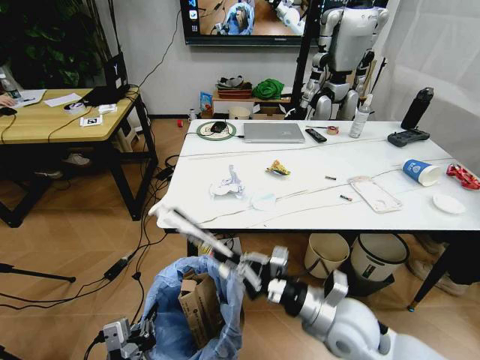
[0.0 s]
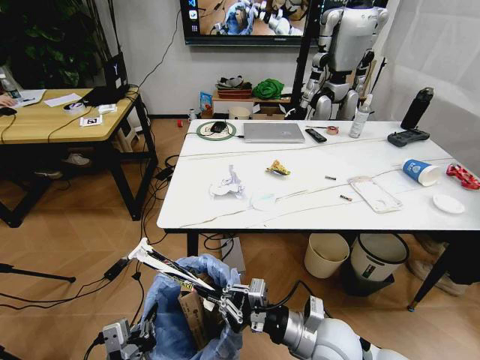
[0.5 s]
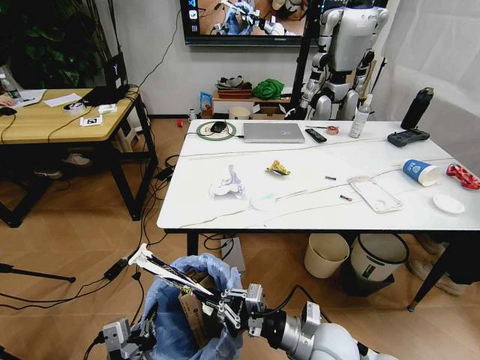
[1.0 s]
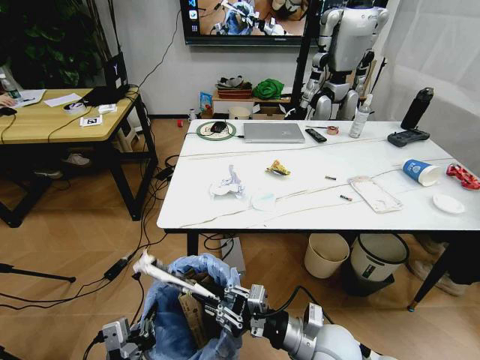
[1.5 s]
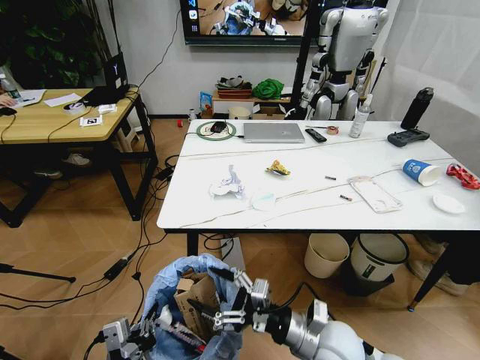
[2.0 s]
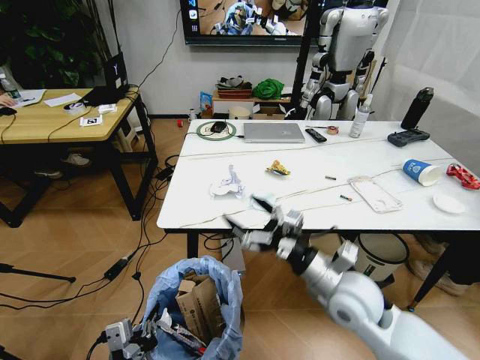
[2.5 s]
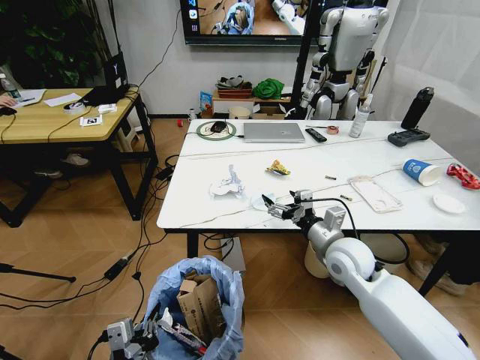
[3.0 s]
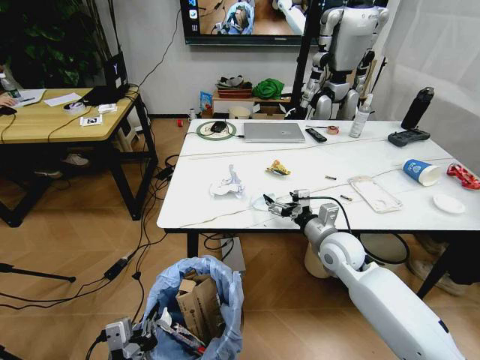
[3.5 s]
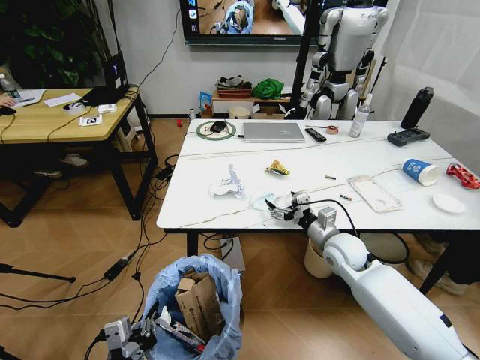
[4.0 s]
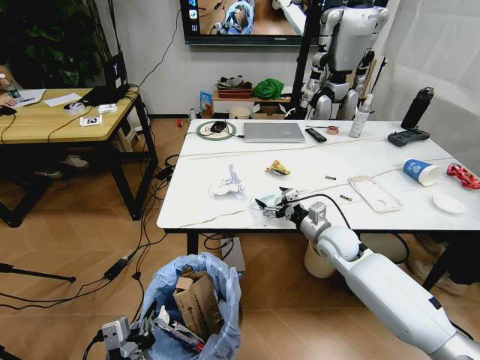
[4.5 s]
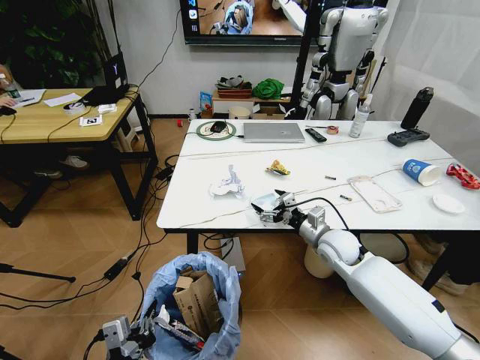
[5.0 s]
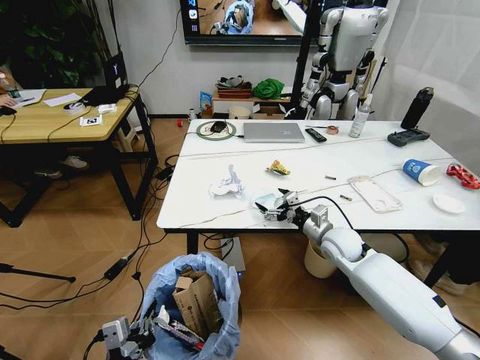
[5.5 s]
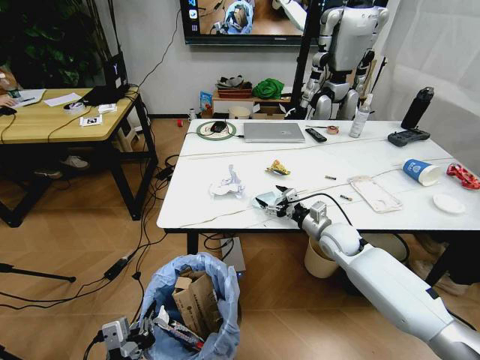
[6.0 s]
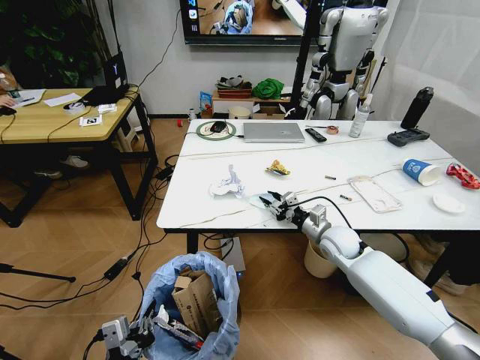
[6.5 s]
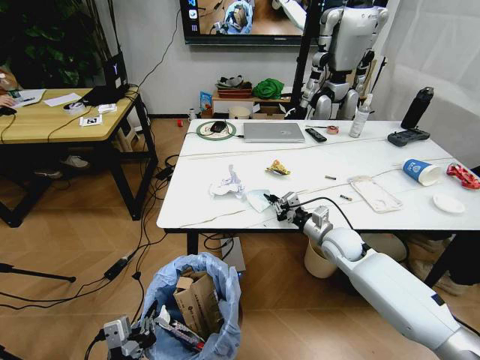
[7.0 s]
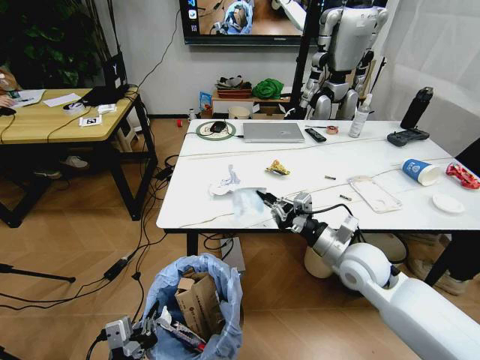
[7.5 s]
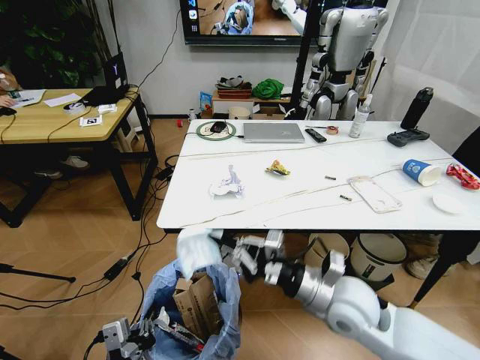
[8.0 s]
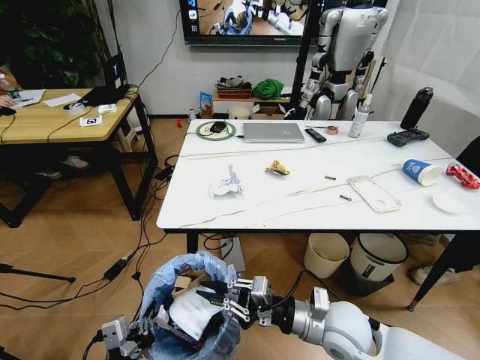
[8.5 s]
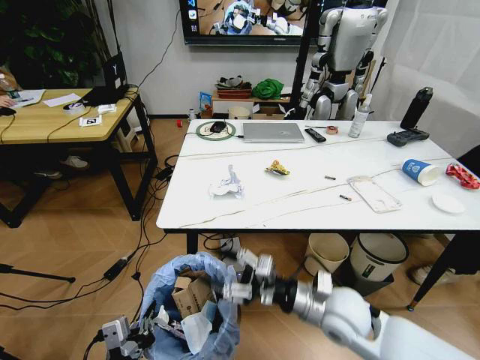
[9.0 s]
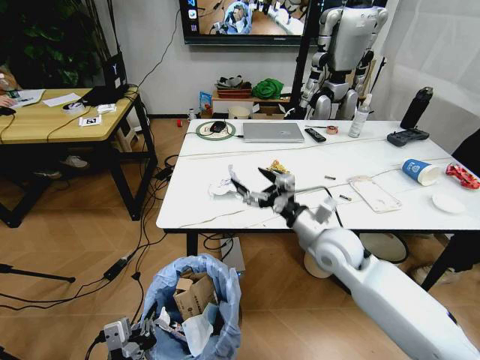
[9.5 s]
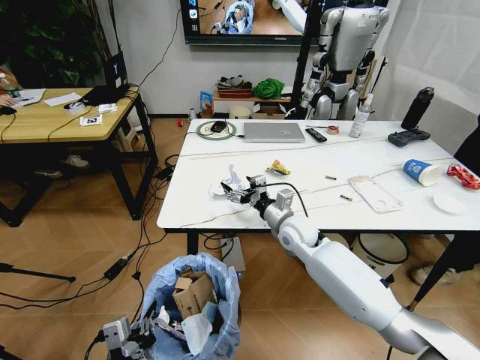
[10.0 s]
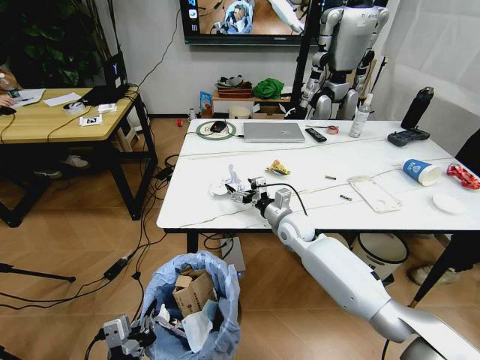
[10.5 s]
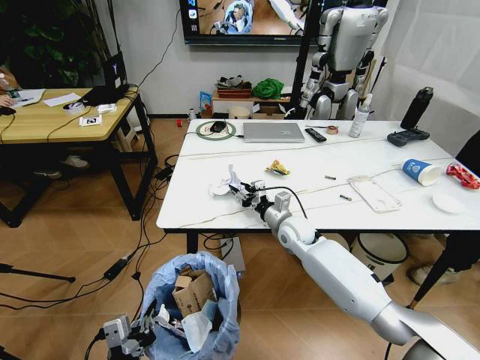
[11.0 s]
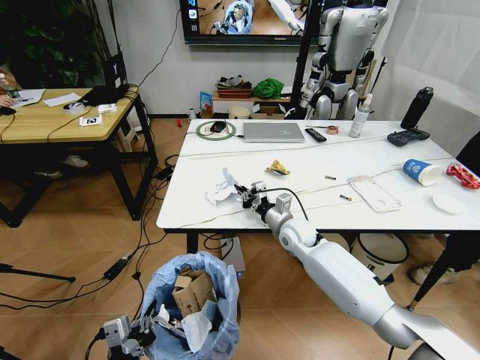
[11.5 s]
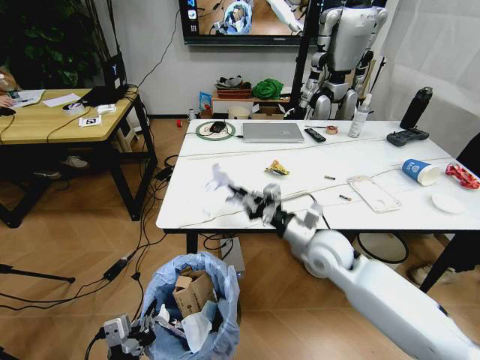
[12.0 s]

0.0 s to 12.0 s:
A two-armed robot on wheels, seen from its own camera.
Task of the whole recording: Pick up the trash bin and place the trash from the table into it.
0.0 to 2.0 s: The right gripper changes place by some 5 cm, and opens up.
2.0 to 4.0 s: The right gripper goes approximately 20 cm forward and to the right.
4.0 to 6.0 s: The grippers stay close to where they were, moving slightly.
6.0 to 8.0 s: The right gripper moves backward, about 20 cm, and closes.
8.0 to 10.0 s: The right gripper travels forward by roughly 20 cm, and opens its fingers.
10.0 to 12.0 s: The right gripper travels backward by roughly 10 cm, and closes its fingers.

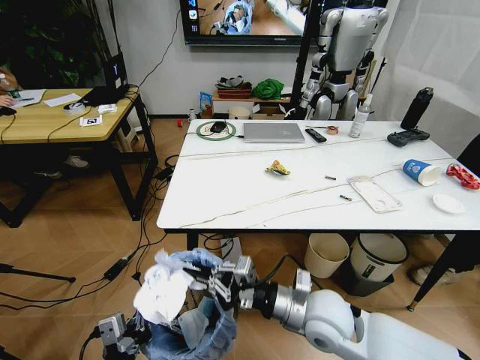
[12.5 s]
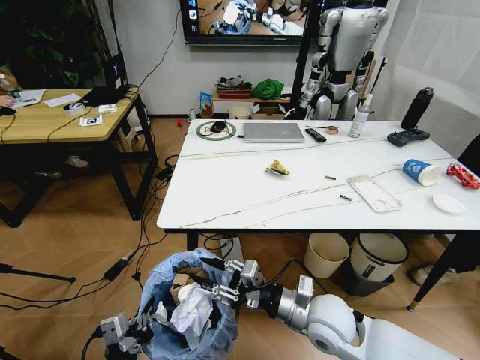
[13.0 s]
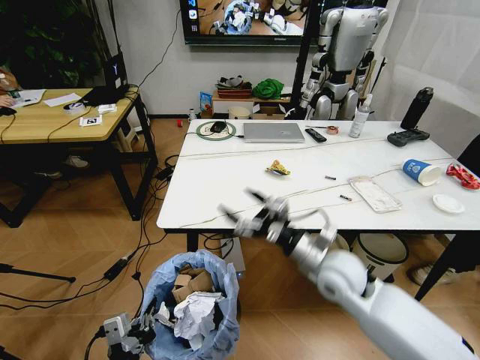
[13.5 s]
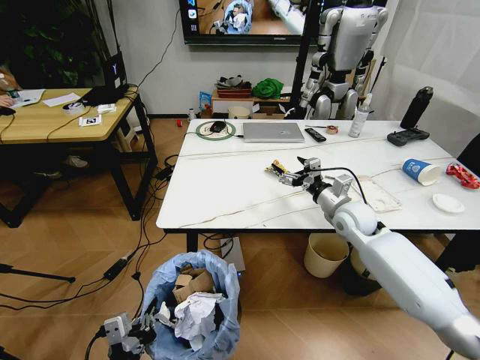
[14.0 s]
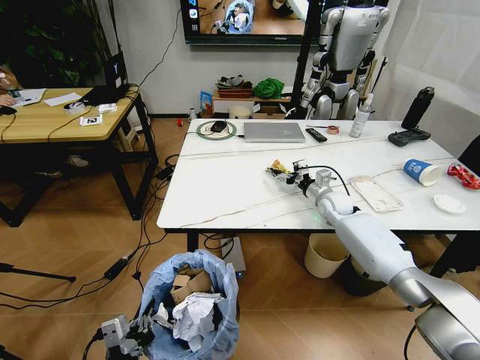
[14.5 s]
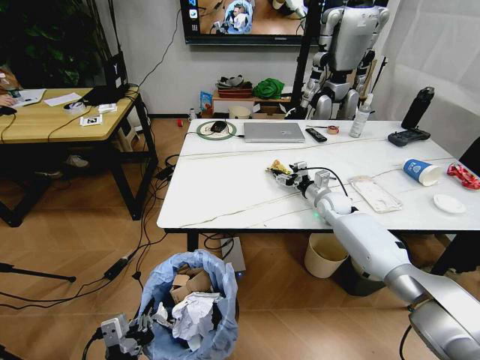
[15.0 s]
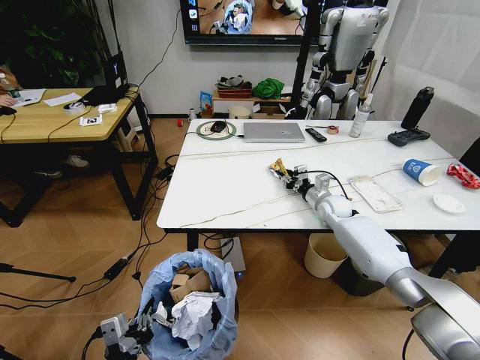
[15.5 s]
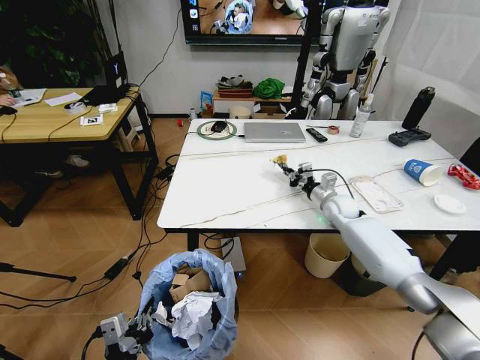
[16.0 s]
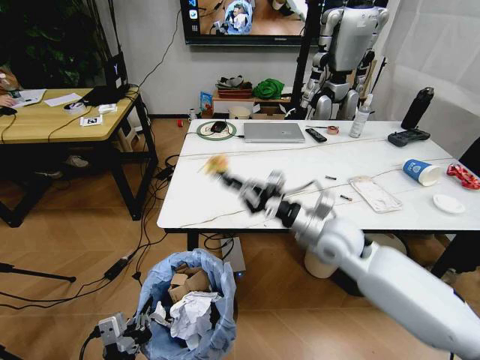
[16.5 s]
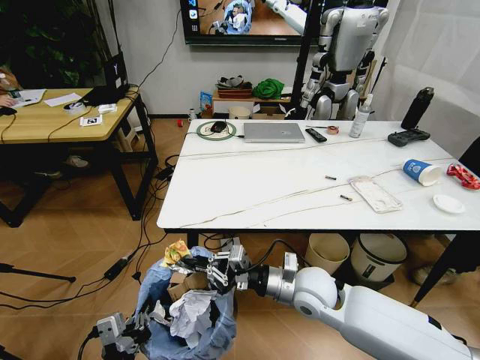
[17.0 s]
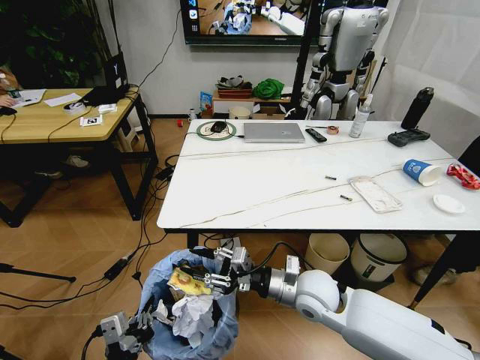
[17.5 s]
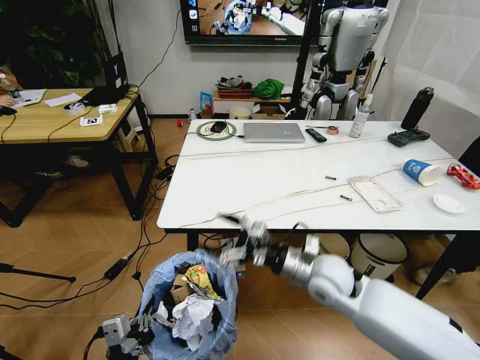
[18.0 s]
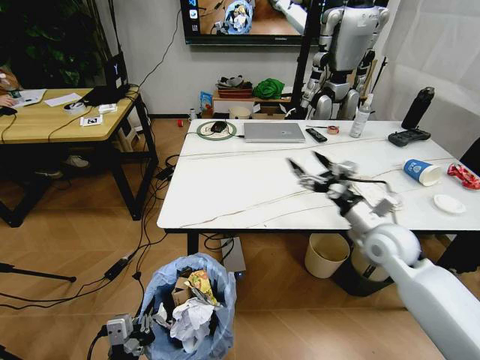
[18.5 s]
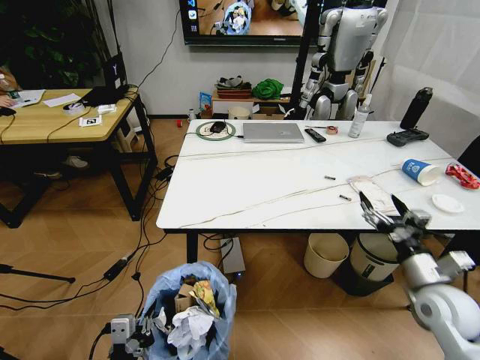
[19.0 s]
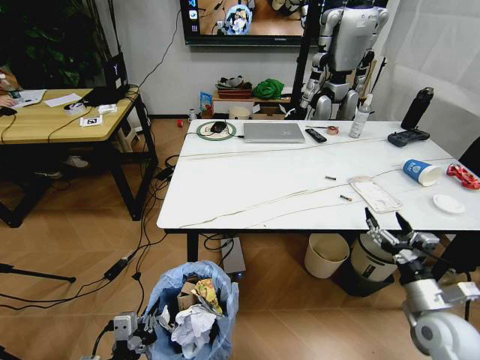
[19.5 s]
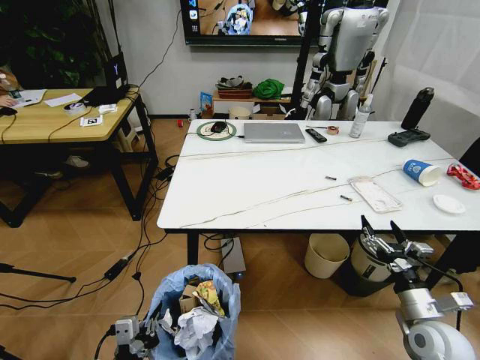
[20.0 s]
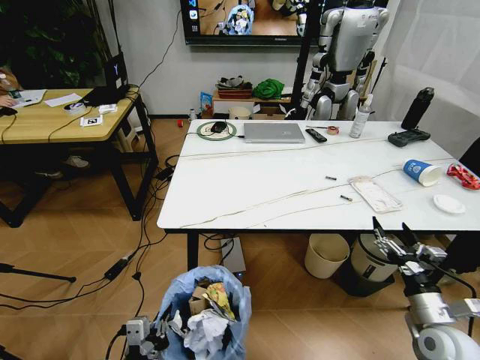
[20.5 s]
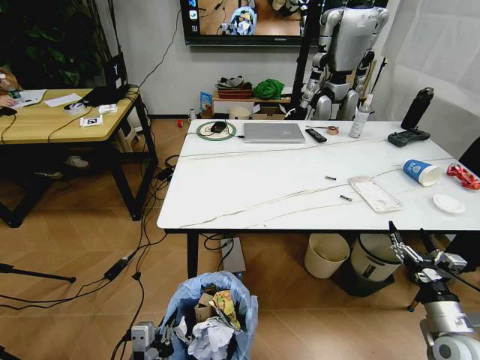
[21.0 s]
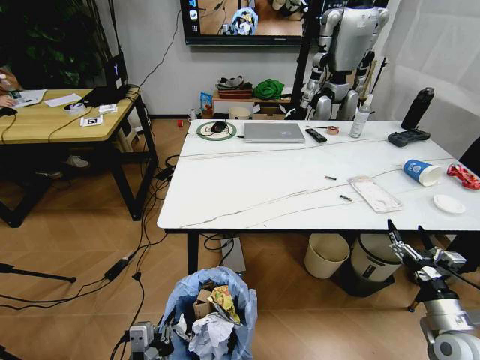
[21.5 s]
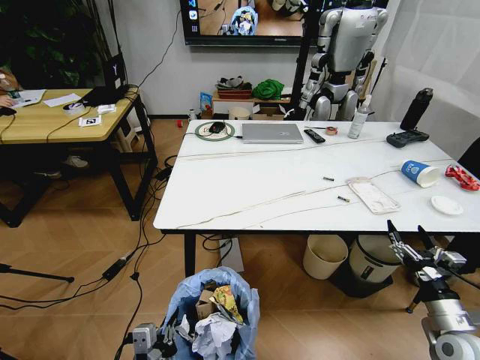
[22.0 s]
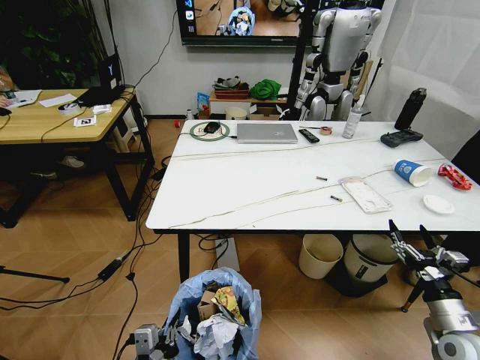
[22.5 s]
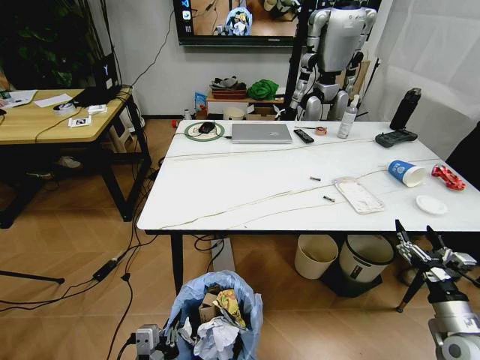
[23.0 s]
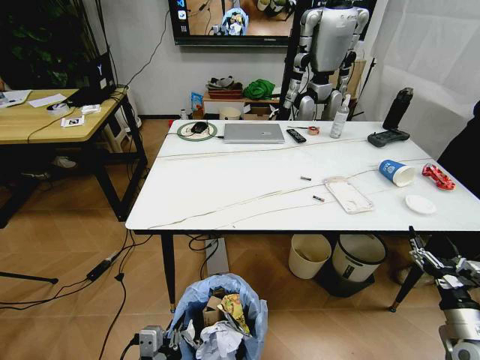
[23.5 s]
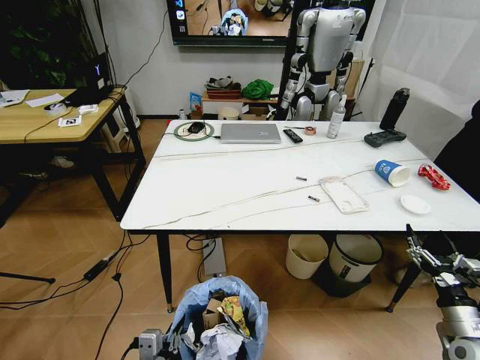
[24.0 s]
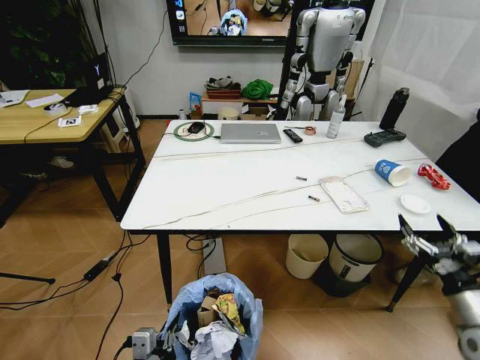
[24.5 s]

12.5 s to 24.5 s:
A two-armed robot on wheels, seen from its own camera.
Task of the whole recording: Pick up the trash bin and place the trash from the table into it.
12.5 to 14.5 s: The right gripper moves forward and to the right, approximately 35 cm, and opens.
14.5 to 16.5 s: The right gripper goes roughly 25 cm backward, upward and to the left, and closes.
16.5 to 18.5 s: The right gripper is displaced to the right by approximately 10 cm, and opens its fingers.
18.5 to 20.5 s: The right gripper shifts approximately 25 cm backward, downward and to the right.

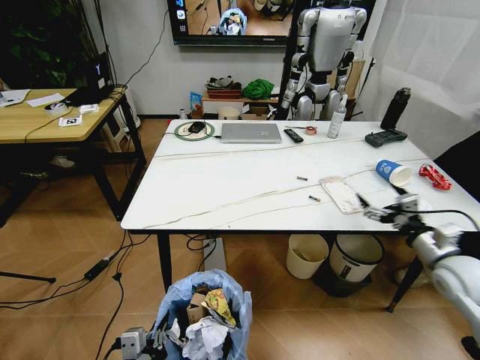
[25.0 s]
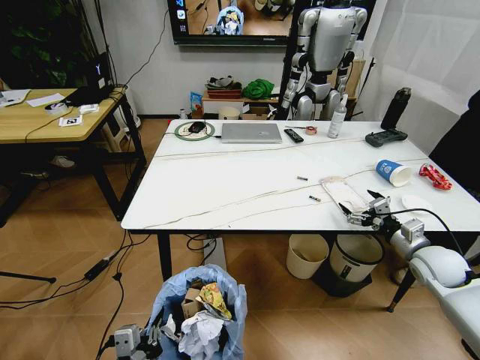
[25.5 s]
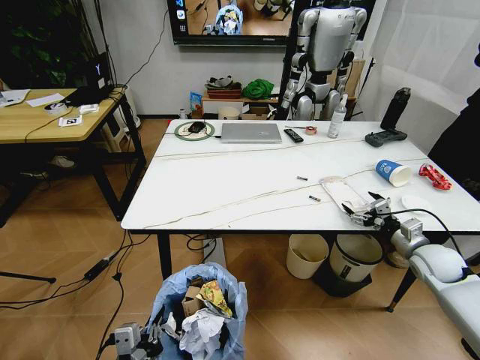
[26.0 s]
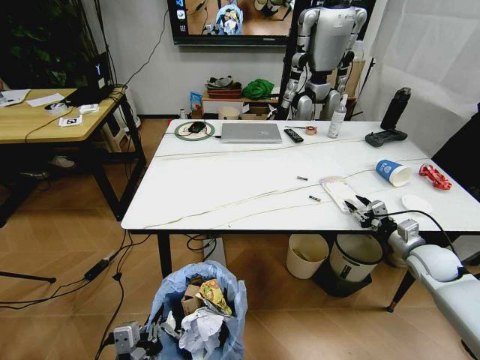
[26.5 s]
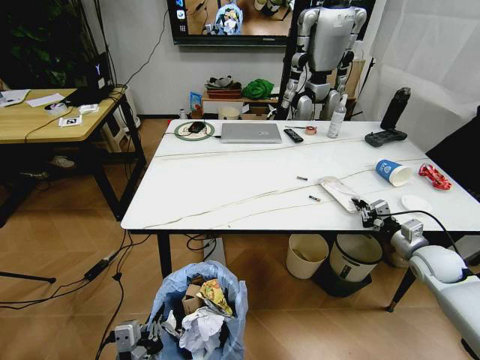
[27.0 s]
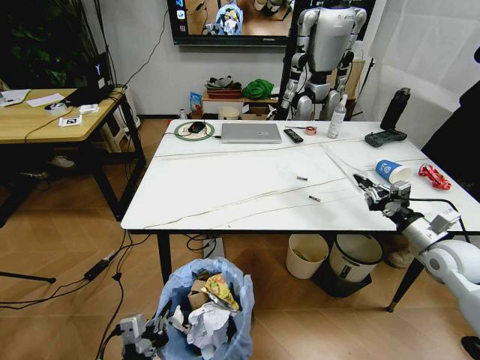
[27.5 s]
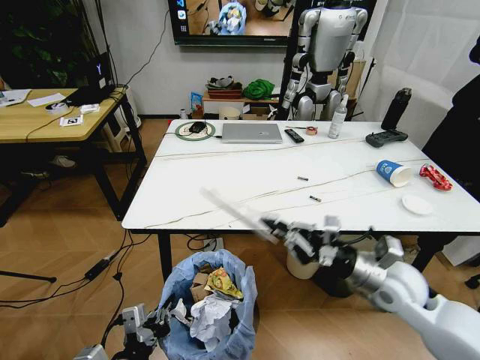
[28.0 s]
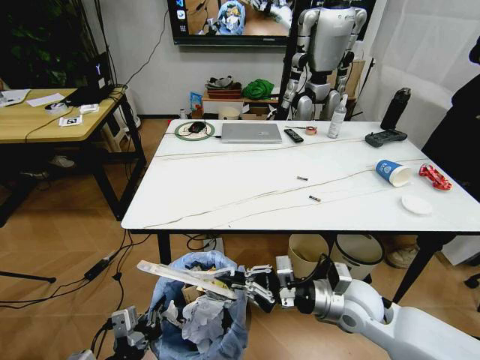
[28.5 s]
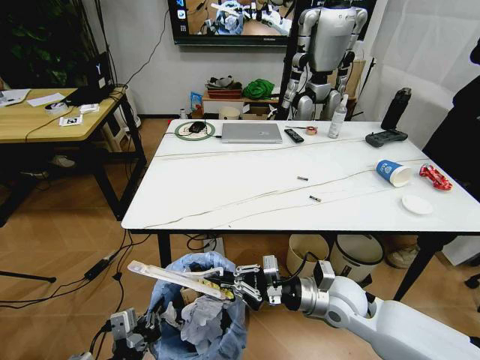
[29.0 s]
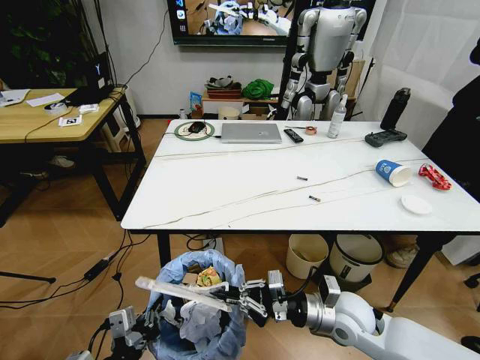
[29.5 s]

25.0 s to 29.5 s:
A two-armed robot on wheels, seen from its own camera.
Task of the whole recording: Pick up the trash bin and place the trash from the table into it.
25.0 to 27.0 s: The right gripper heads downward and forward, covering roughly 10 cm, and closes its fingers.
27.0 to 29.5 s: The right gripper heads to the left and backward, covering some 30 cm.
